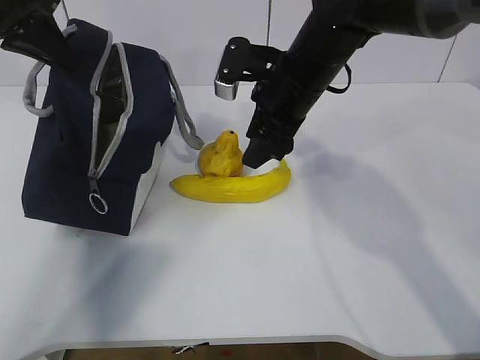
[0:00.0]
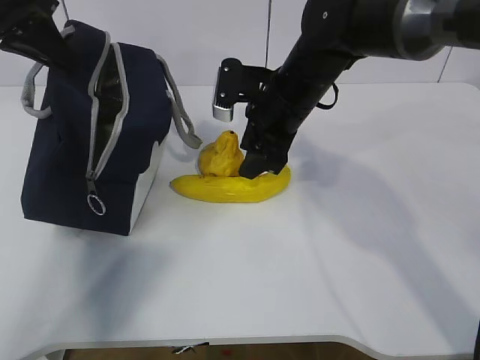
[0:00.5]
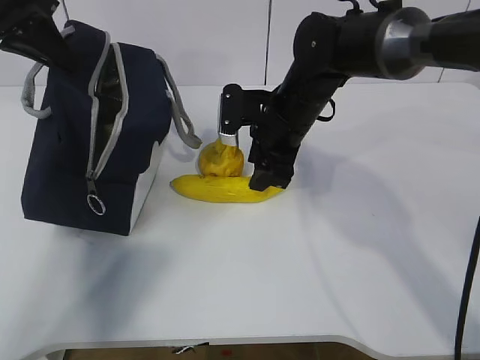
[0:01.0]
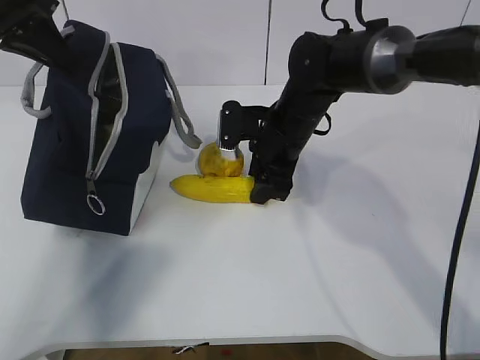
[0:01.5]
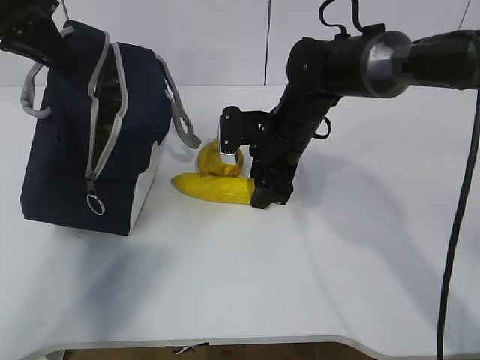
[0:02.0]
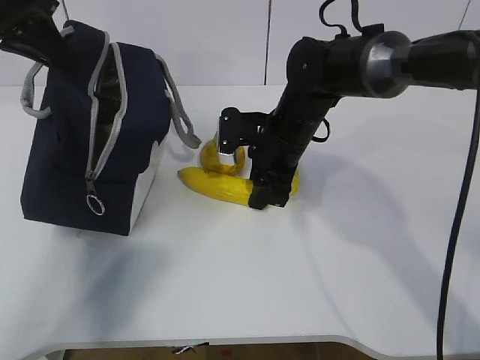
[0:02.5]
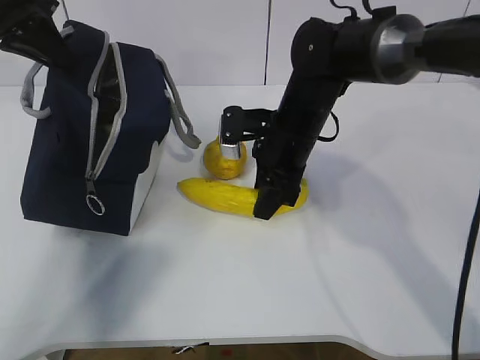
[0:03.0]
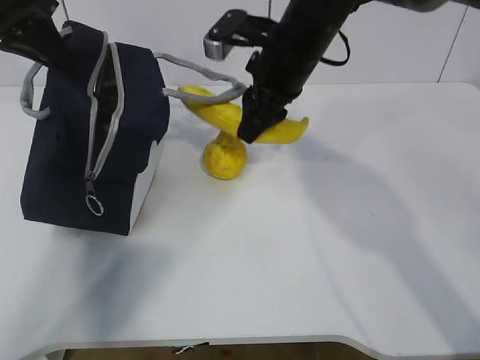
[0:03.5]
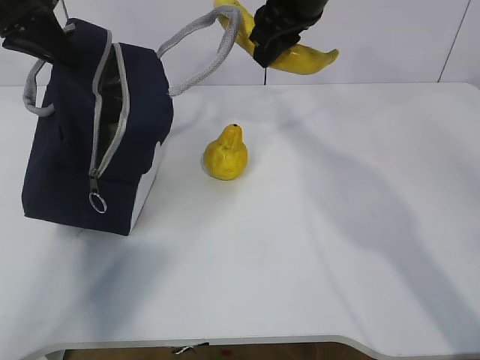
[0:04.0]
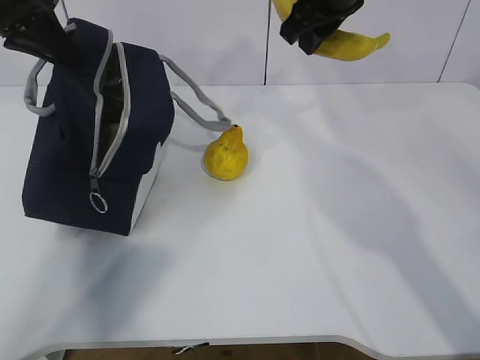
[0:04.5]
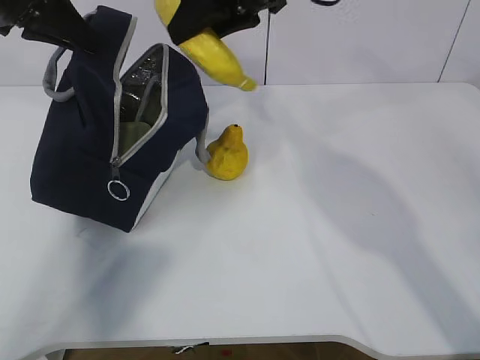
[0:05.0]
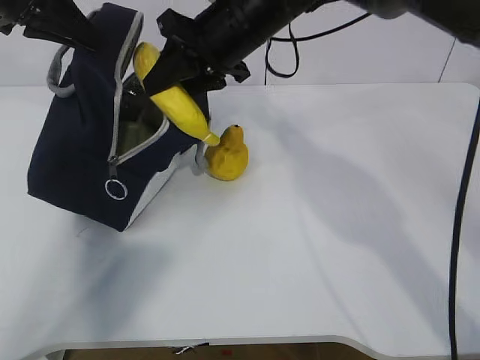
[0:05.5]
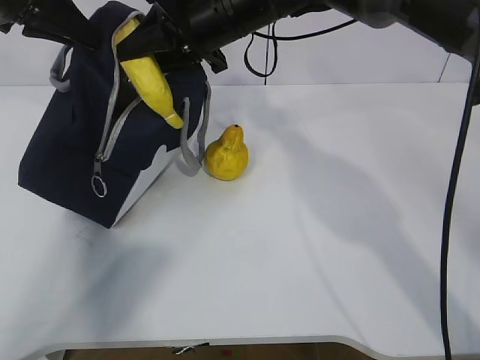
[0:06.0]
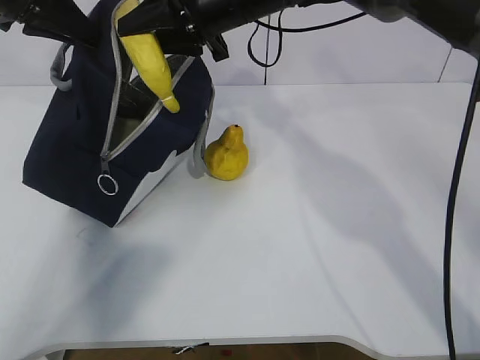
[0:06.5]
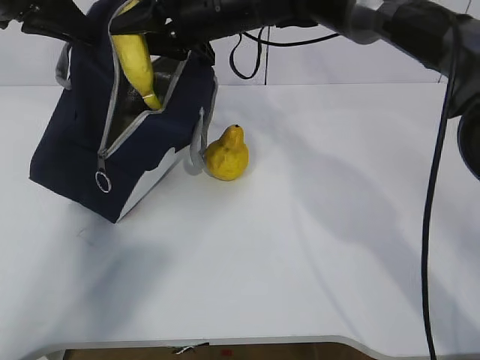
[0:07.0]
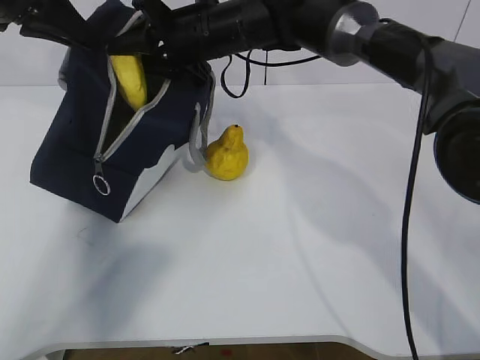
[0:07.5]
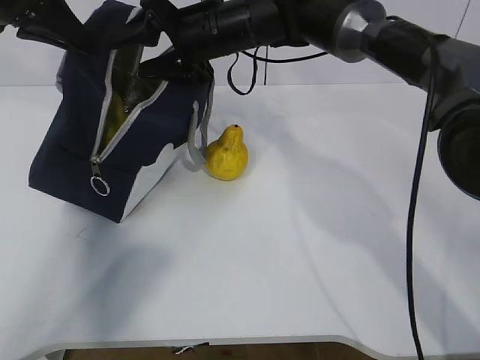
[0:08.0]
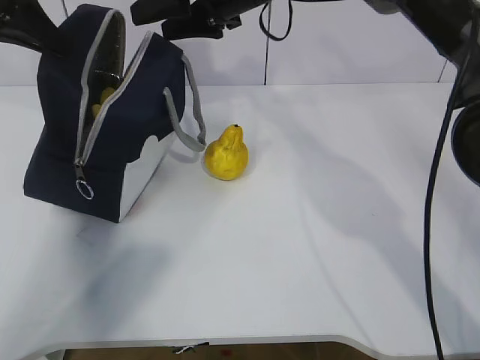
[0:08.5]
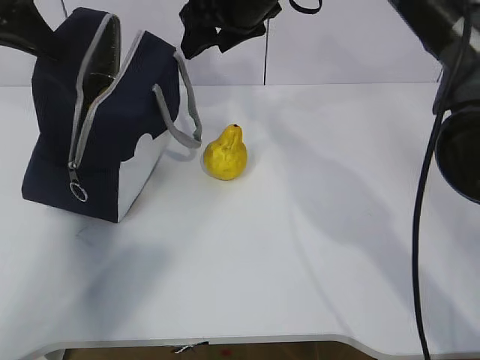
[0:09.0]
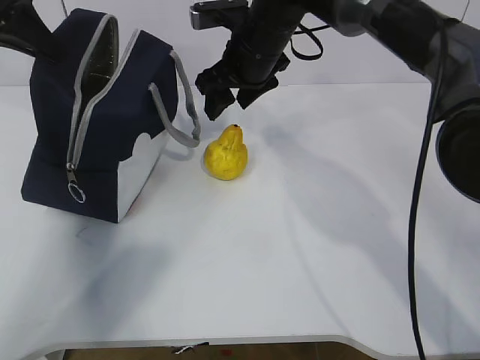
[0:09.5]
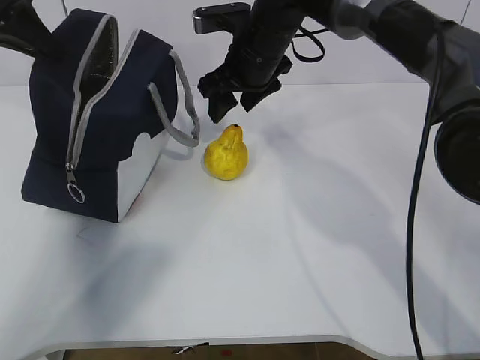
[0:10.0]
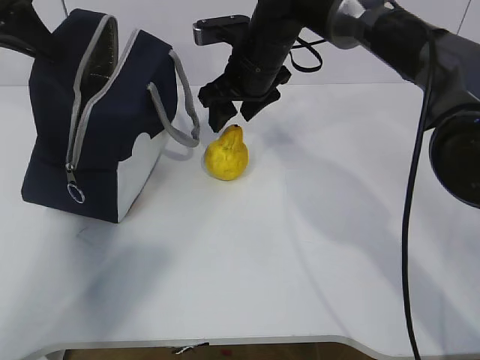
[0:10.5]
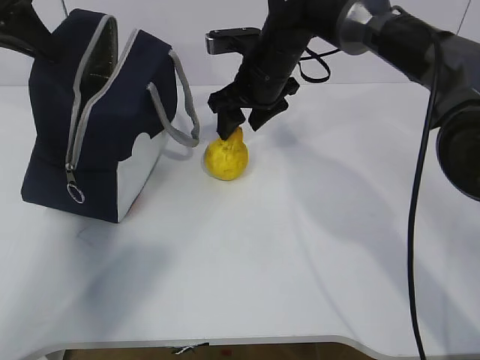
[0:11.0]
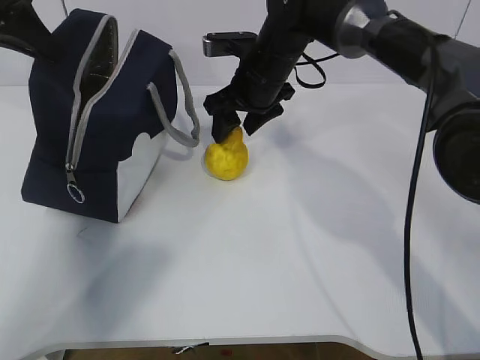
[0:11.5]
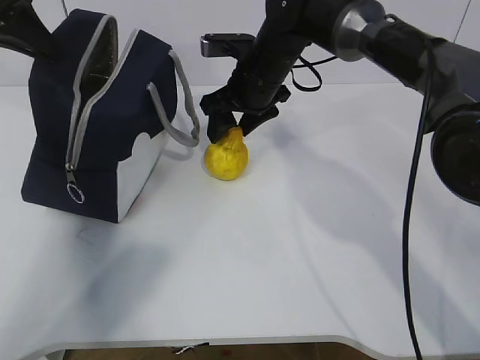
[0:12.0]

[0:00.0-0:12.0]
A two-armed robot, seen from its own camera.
Step, 0:00.0 to 0:03.5: Place it into the bag with your right hand.
Step, 0:04.0 to 0:08.0: Grab the pear with your right hand.
0:00.0 to 0:02.0: The right gripper travels downward by about 10 cm.
0:02.0 to 0:04.0: The right gripper travels upward by approximately 20 cm.
0:04.0 to 0:06.0: The right gripper is displaced to the left by approximately 10 cm.
0:06.0 to 0:08.0: The right gripper opens up.
0:10.0 to 0:12.0: The grippers make only small movements.

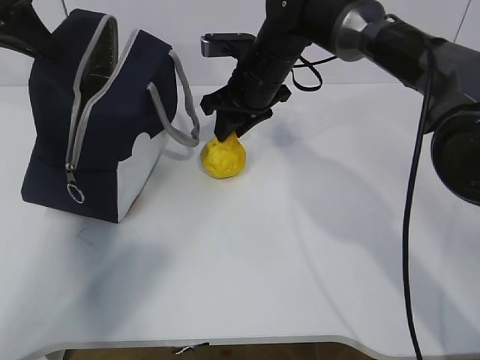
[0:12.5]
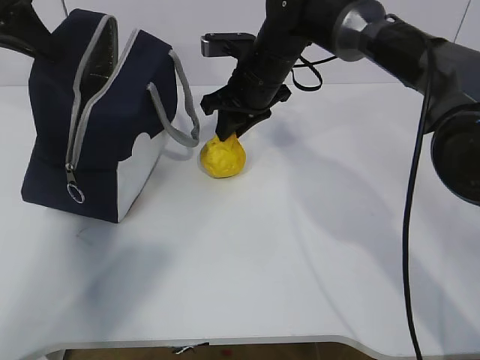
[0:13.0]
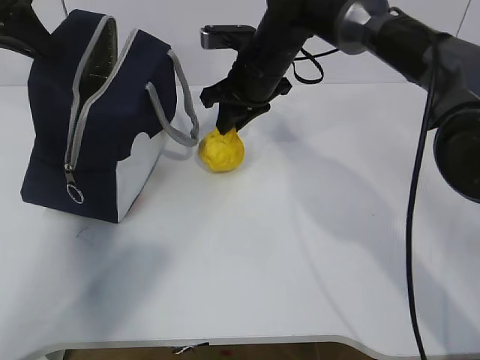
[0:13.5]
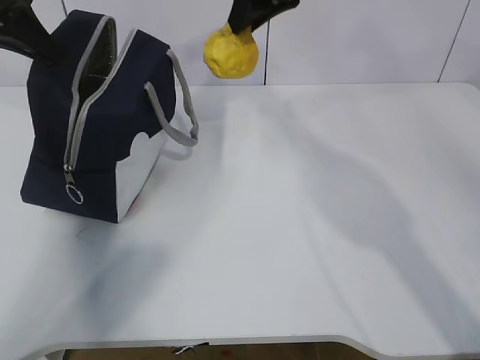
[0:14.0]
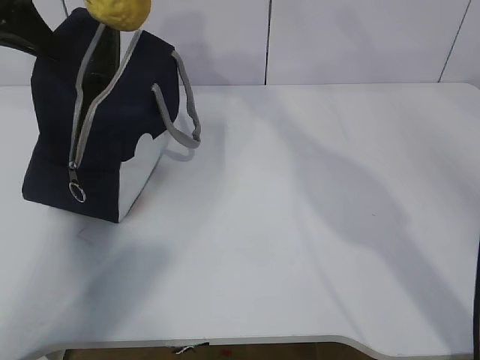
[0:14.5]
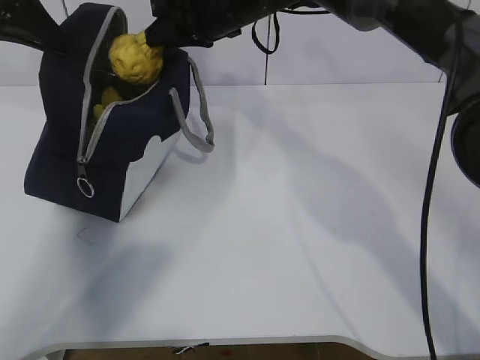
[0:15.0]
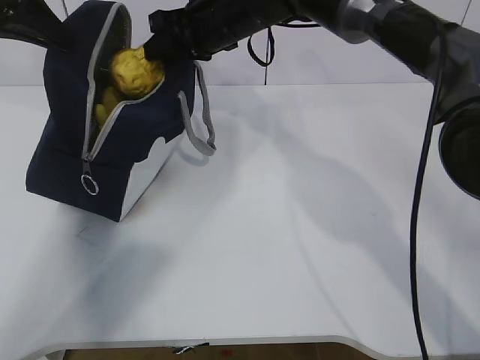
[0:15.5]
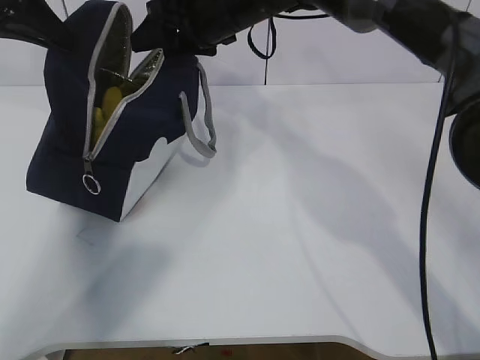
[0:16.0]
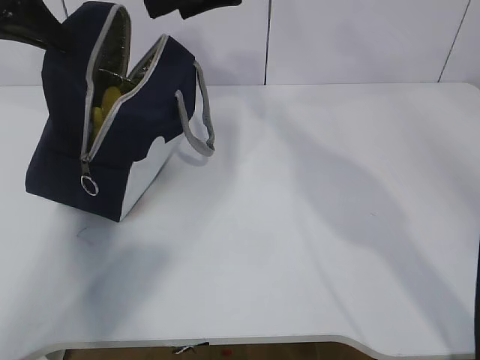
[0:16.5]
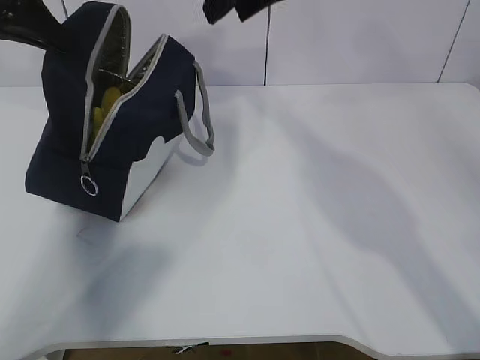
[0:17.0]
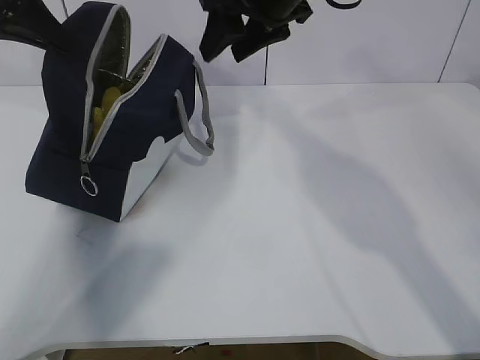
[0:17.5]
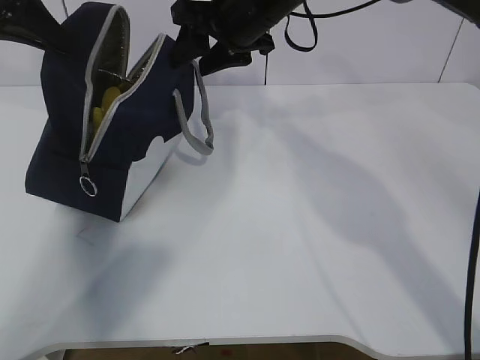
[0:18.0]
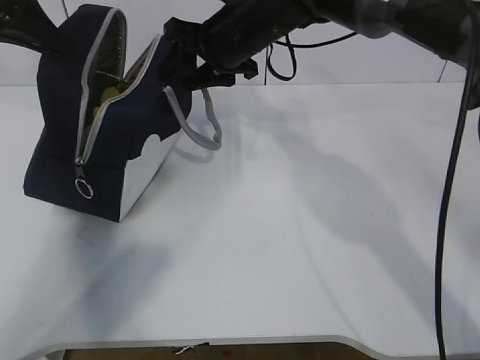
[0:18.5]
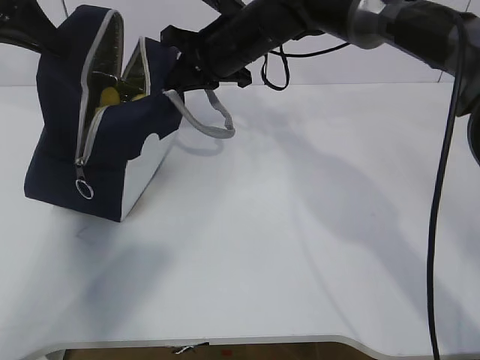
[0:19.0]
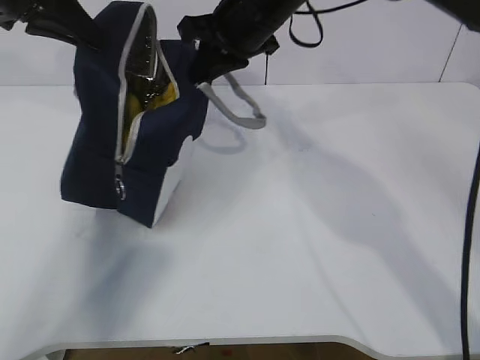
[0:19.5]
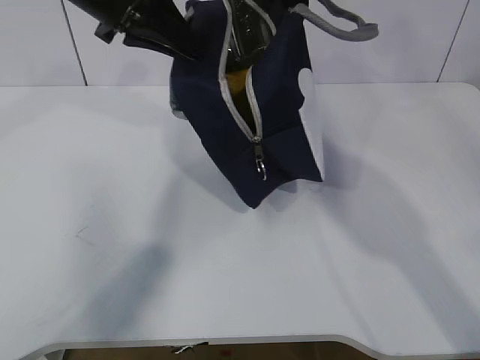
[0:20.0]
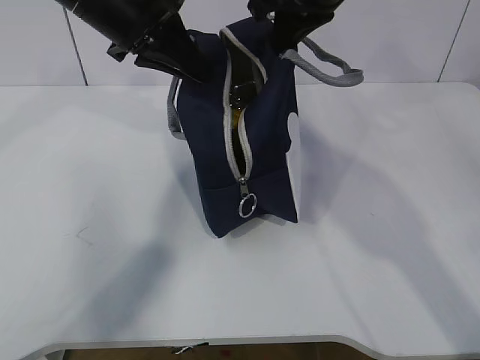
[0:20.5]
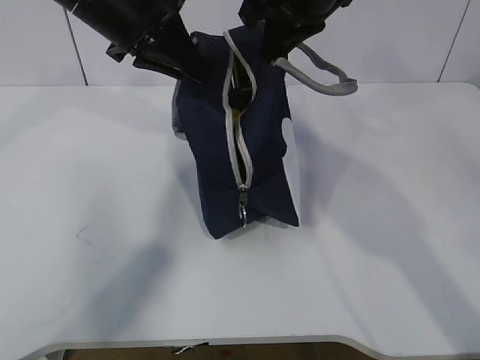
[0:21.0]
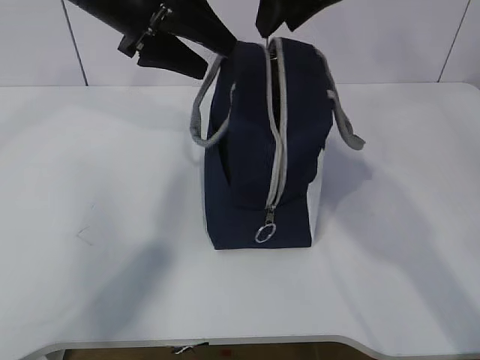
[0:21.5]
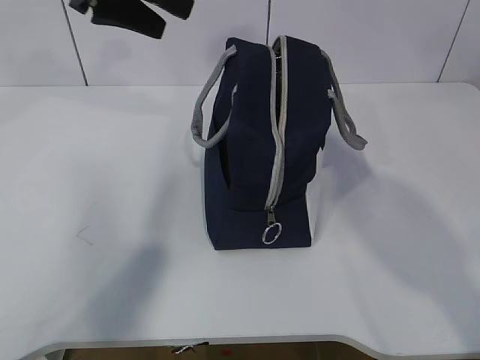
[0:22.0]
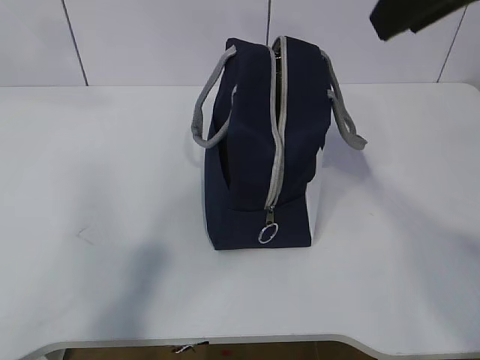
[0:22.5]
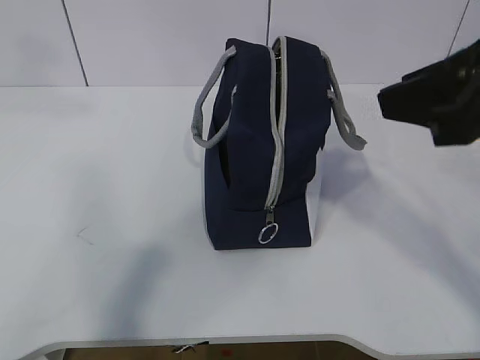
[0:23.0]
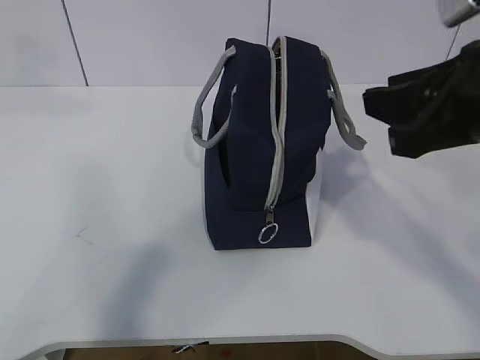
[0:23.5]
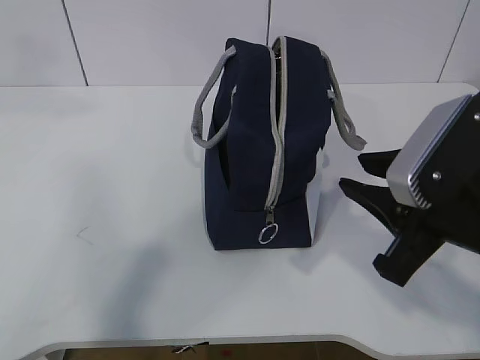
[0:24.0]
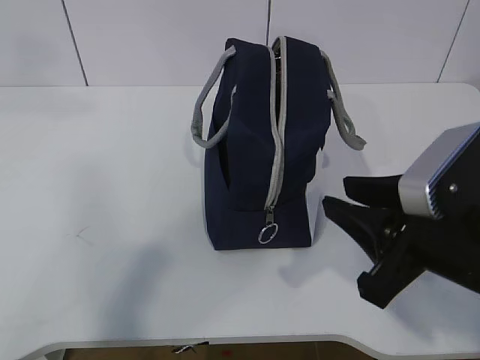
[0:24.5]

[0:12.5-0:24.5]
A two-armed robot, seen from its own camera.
Step, 0:13.0 to 0:15.0: Move the lunch bag to the right.
0:12.5 to 0:14.5: The right gripper heads upward, covering roughly 15 cm.
0:14.5 to 0:16.5: The right gripper moves some 10 cm downward and comes back, and opens up.
0:16.5 to 0:18.5: The right gripper is displaced downward by approximately 10 cm.
0:18.5 to 0:20.5: The left gripper shifts approximately 15 cm to the right; the right gripper moves upward, to the right and backward, some 15 cm, and closes.
0:20.5 to 0:22.5: The right gripper goes about 20 cm backward, upward and to the right, and opens, while the left gripper moves upward, to the left and backward, roughly 15 cm, and opens.
0:22.5 to 0:24.5: The right gripper shifts approximately 20 cm downward. Meanwhile the left gripper is displaced backward by approximately 5 cm.

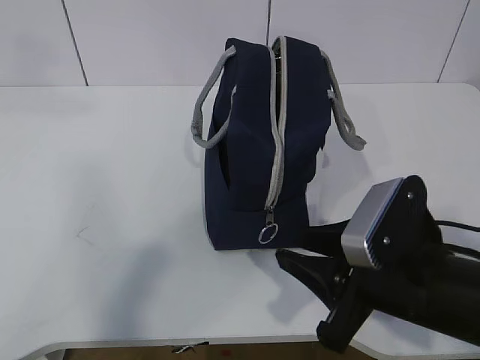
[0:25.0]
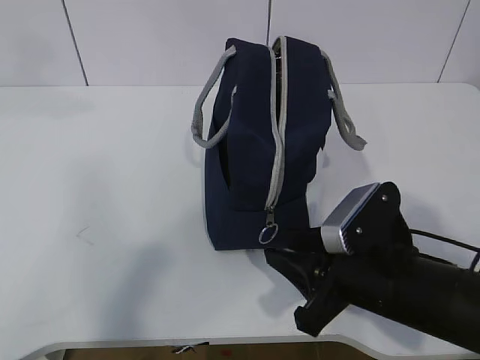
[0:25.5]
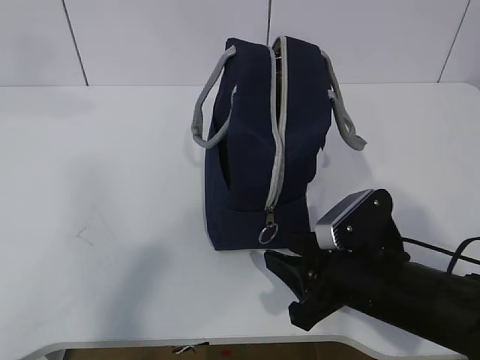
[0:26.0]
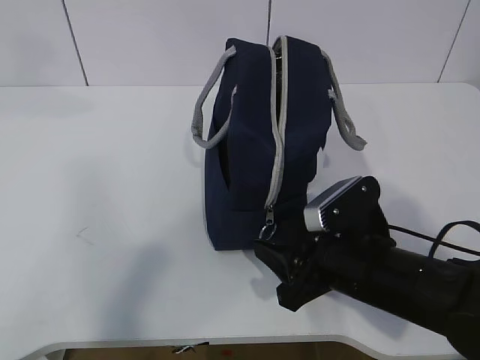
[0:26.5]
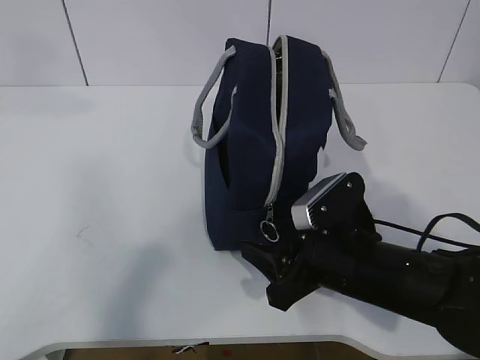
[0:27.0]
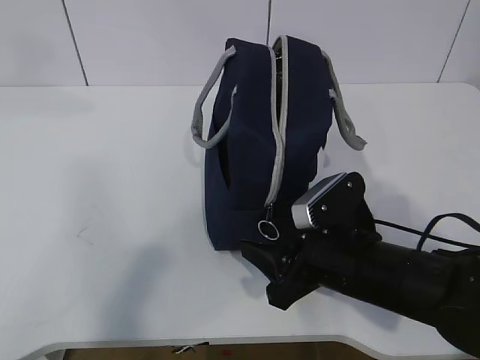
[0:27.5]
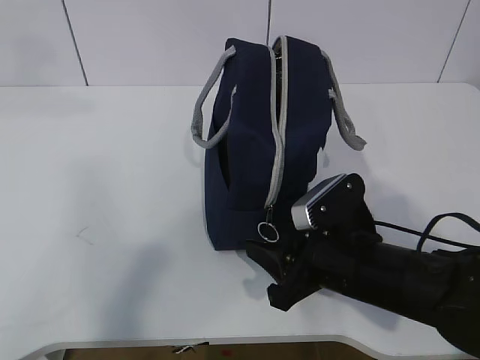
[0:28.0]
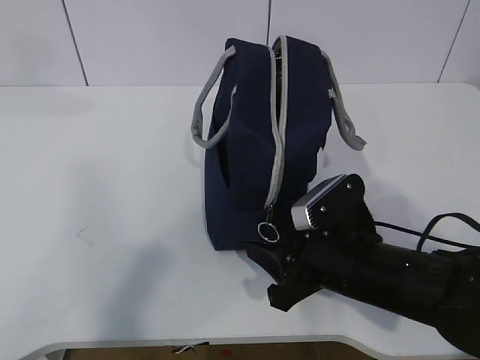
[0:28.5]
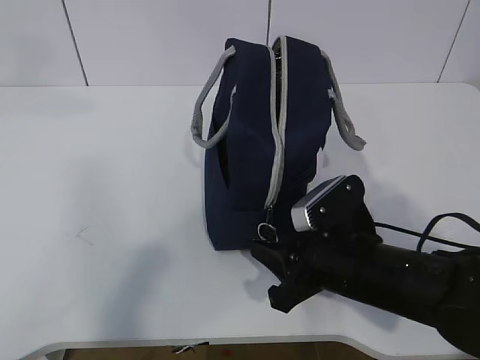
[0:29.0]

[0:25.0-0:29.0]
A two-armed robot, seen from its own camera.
0:25.0 to 0:27.0: The right gripper ends up some 5 cm from where it was.
0:27.0 to 0:29.0: Both grippers stay about where they are.
